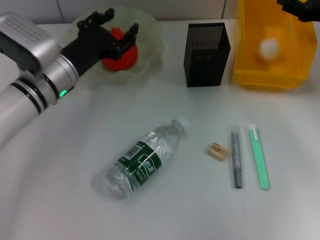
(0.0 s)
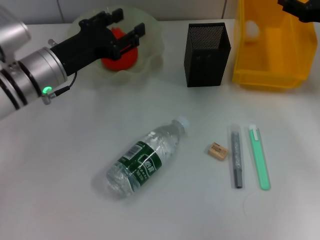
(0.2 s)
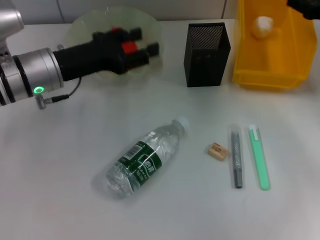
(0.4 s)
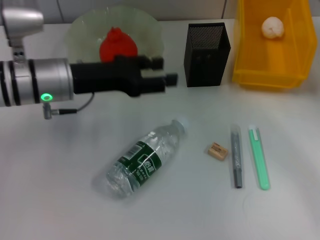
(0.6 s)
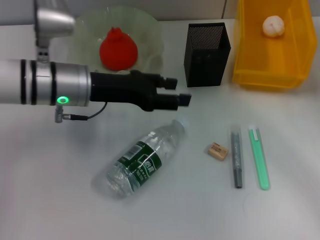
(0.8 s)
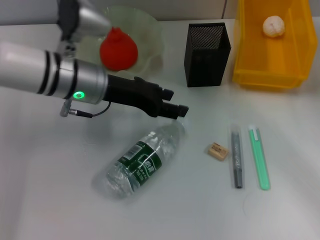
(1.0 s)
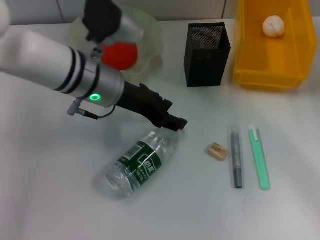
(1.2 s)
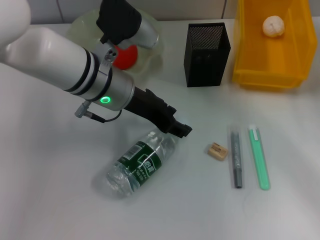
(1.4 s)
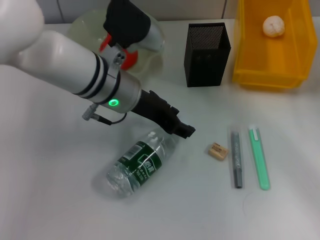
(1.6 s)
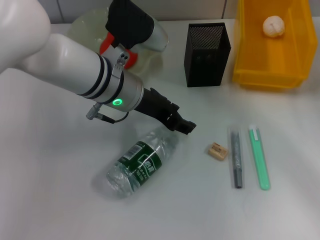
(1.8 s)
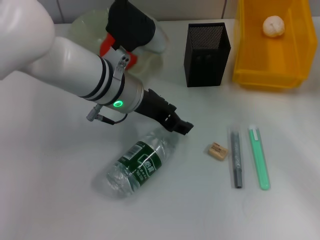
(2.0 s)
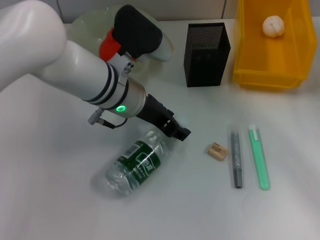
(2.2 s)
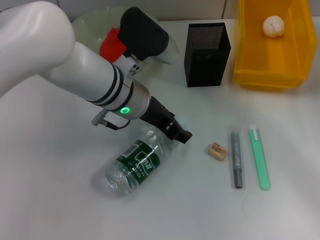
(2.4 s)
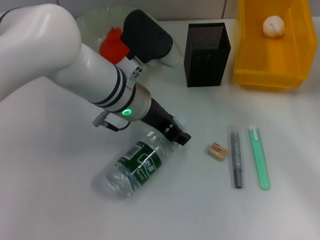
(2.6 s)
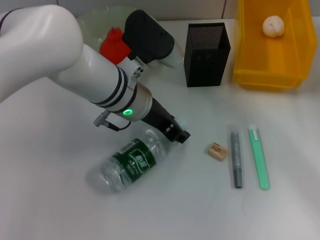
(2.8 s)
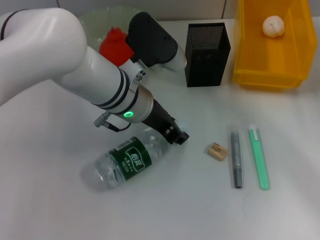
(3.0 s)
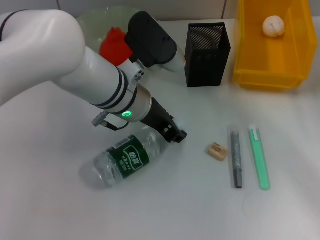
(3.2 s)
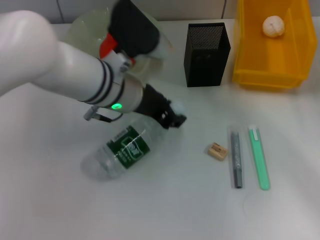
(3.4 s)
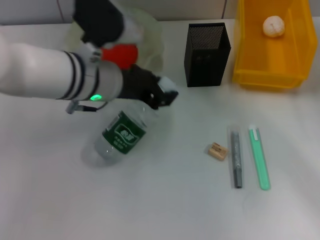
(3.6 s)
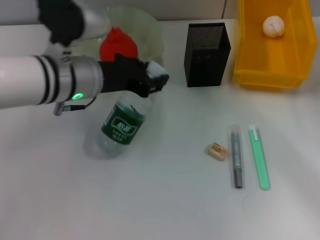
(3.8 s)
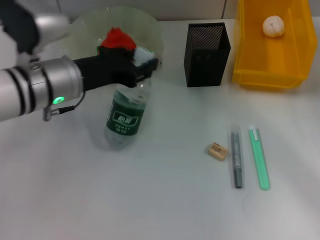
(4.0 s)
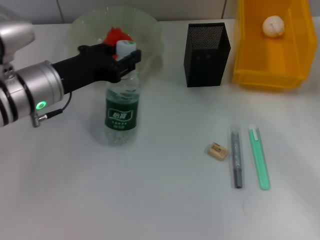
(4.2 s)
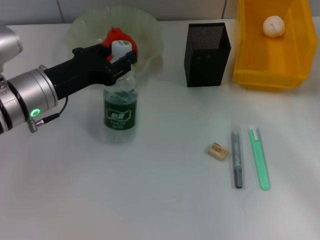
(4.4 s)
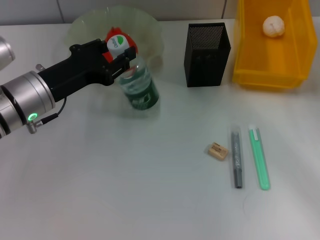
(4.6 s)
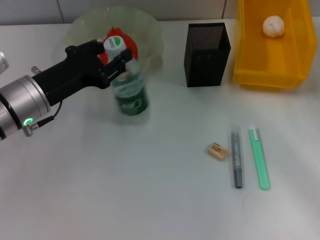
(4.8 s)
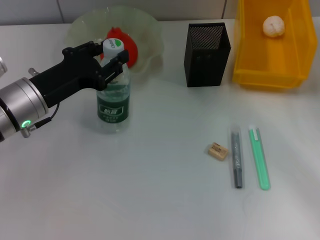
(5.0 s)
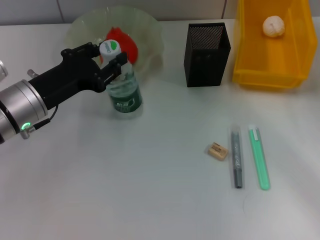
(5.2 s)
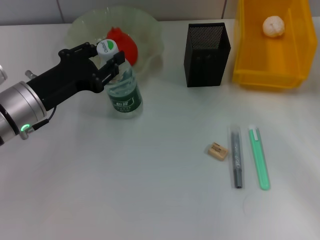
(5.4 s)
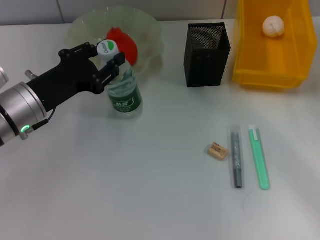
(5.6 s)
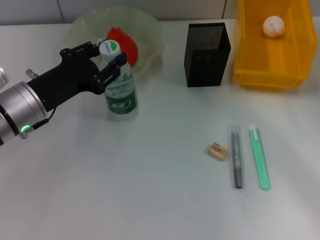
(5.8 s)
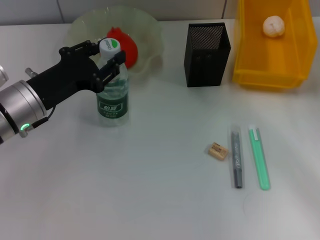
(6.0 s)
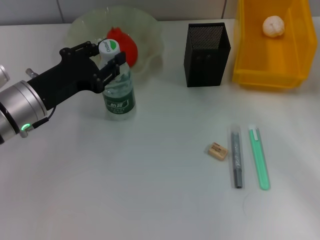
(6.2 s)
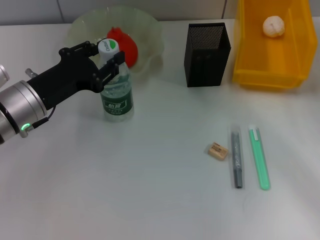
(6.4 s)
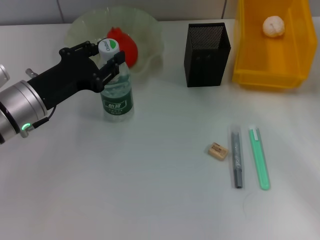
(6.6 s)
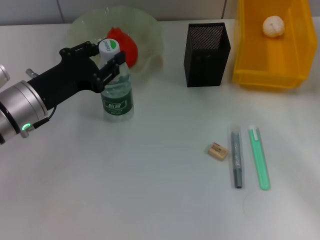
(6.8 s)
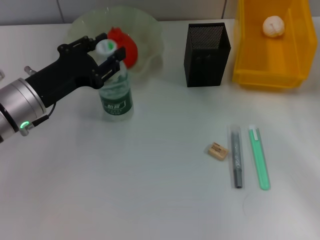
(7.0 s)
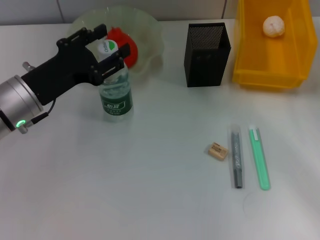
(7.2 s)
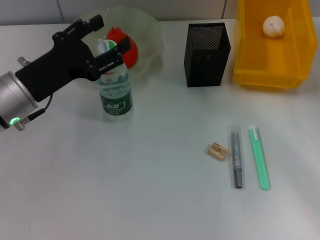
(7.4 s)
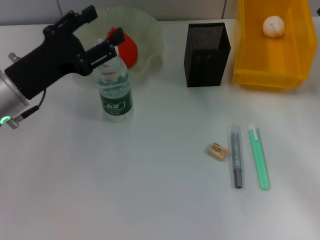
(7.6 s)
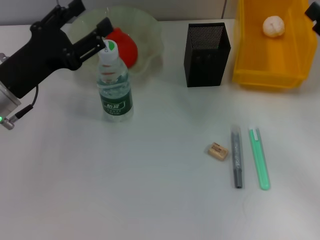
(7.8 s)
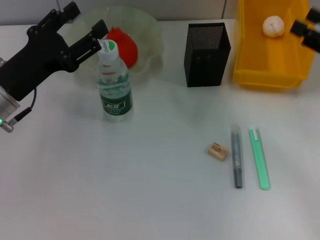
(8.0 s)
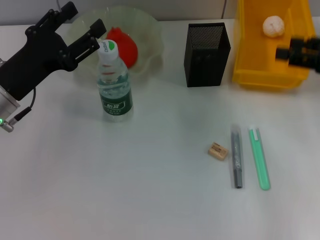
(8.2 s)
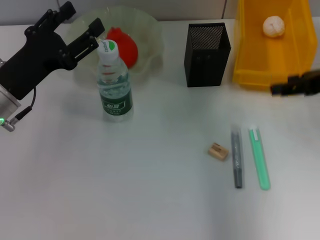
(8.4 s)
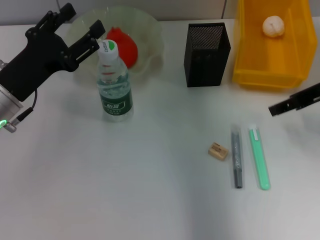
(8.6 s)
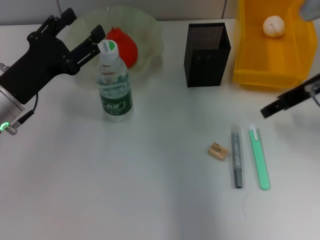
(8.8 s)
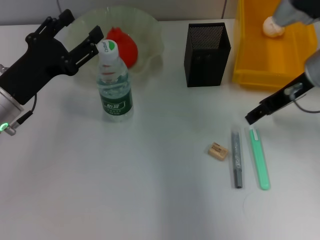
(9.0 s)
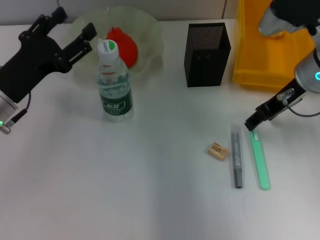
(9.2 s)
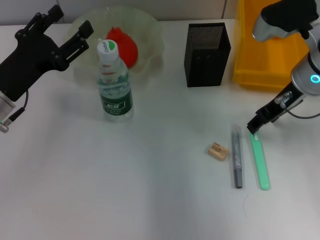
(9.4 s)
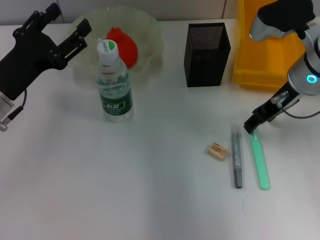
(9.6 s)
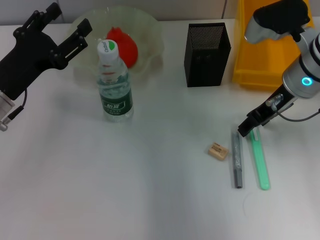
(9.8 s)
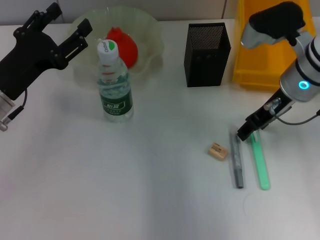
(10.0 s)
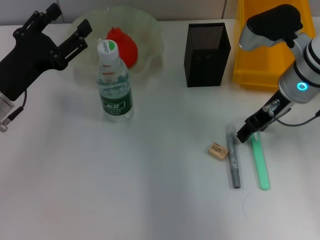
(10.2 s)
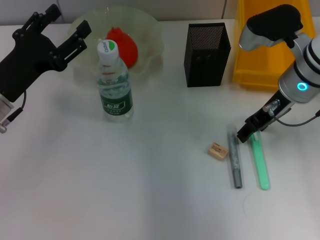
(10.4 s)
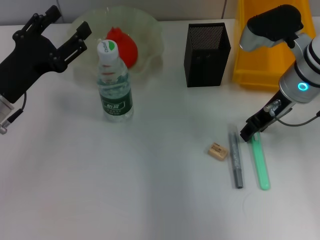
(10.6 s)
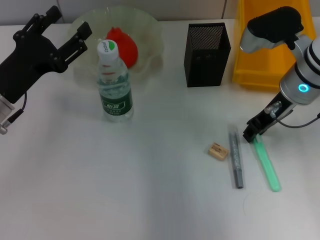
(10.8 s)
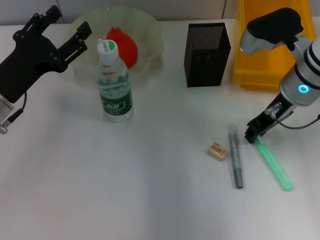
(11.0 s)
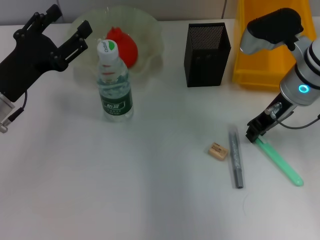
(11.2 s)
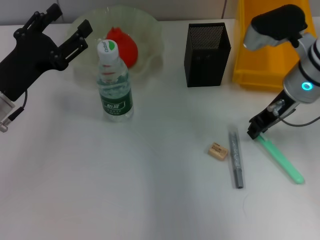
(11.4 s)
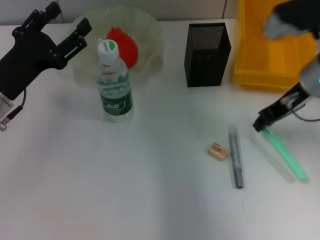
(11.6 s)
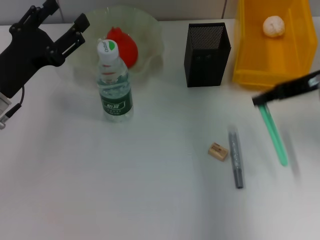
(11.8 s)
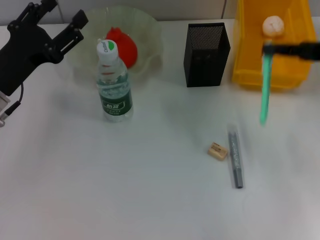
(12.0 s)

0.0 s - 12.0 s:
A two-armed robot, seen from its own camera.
Step, 0.2 s - 3.2 s: Grab the water bottle with the left hand.
Step, 3.4 s - 7.2 s: Place the water bottle on the table with the left hand.
Step, 7.4 s - 11.2 s: Grab the blue utility knife with the right hand.
0.0 s - 1.6 s: The left gripper heads to the right and upward, covering about 10 cm. The right gripper shifts about 10 cm backward.
1.6 s - 3.0 s: The grippers stay close to where they were, moving slightly.
3.0 s - 4.4 s: The left gripper shifts some 15 cm to the left.
4.4 s - 6.0 s: There are only small adjustments of the grippers.
6.0 s - 7.6 s: The left gripper opens.
7.6 s - 9.0 s: The right gripper shifts about 15 cm to the left, forward and upward.
9.0 s - 10.4 s: There are only small adjustments of the grippers.
10.4 s - 12.0 s: The right gripper heads to the right, covering approximately 15 cm, and closes up.

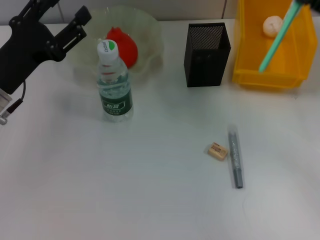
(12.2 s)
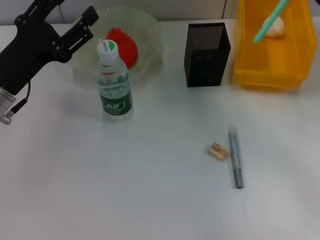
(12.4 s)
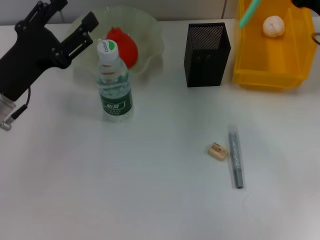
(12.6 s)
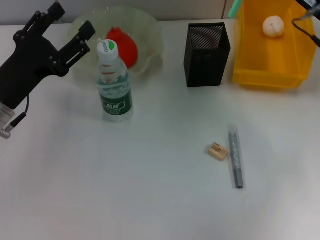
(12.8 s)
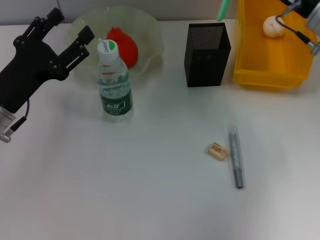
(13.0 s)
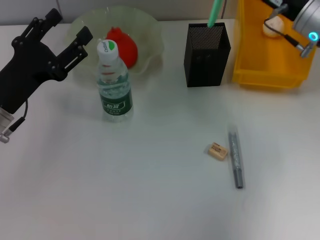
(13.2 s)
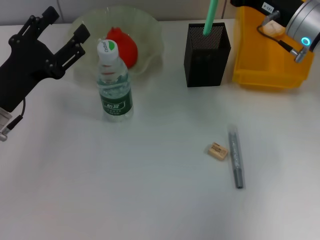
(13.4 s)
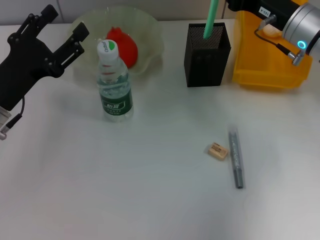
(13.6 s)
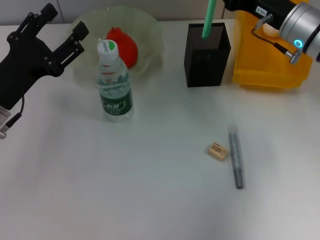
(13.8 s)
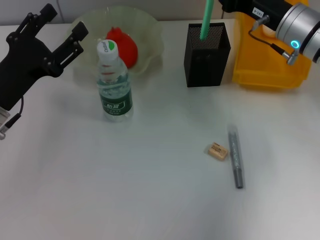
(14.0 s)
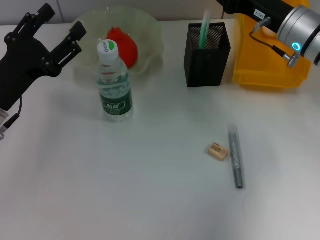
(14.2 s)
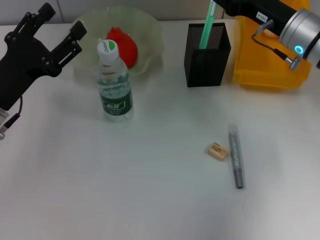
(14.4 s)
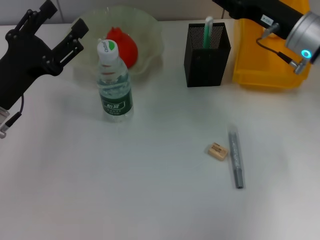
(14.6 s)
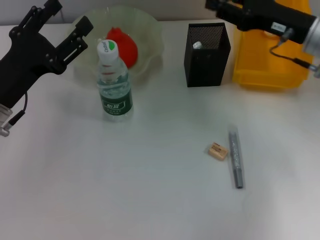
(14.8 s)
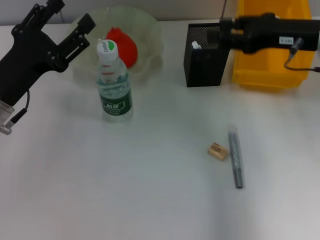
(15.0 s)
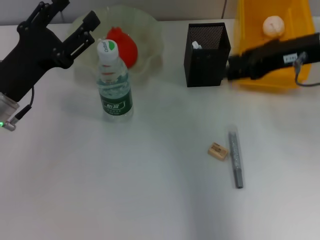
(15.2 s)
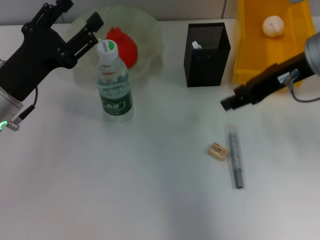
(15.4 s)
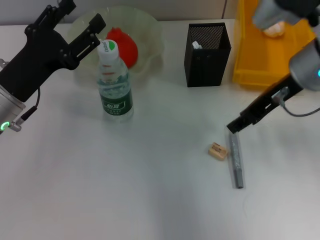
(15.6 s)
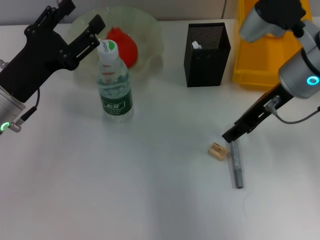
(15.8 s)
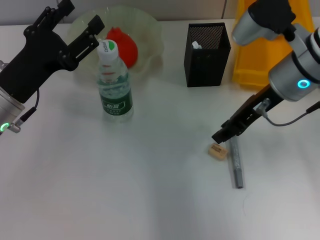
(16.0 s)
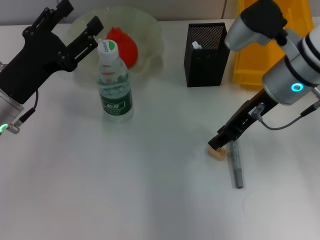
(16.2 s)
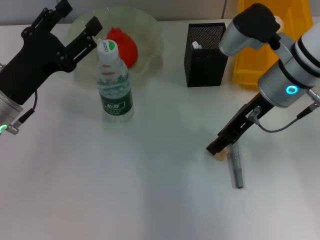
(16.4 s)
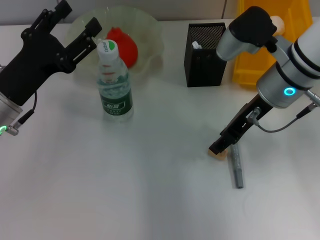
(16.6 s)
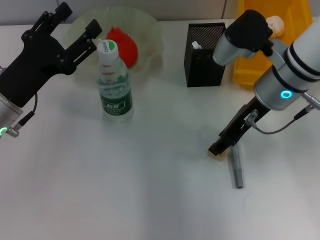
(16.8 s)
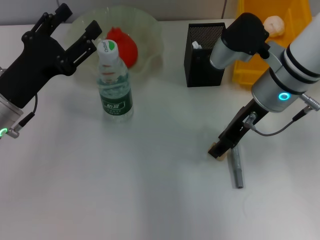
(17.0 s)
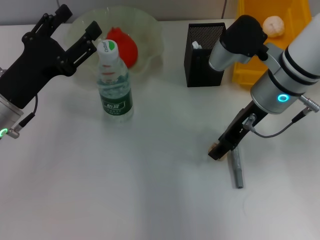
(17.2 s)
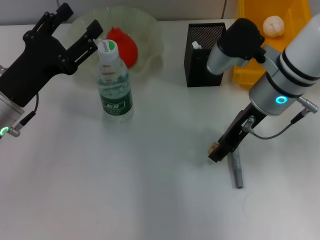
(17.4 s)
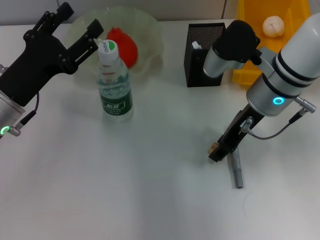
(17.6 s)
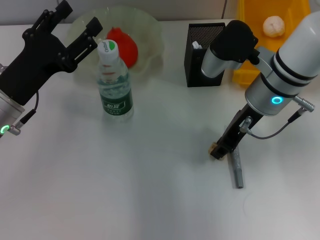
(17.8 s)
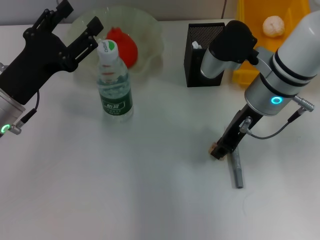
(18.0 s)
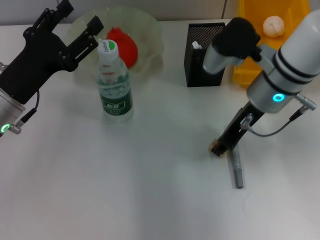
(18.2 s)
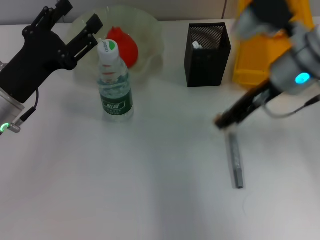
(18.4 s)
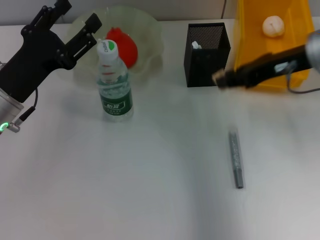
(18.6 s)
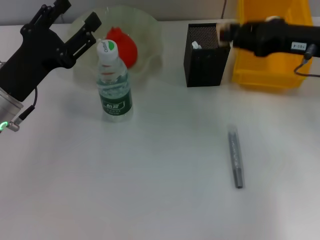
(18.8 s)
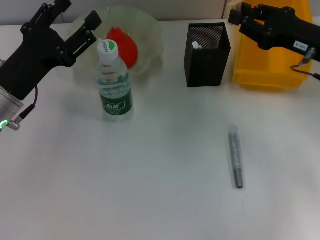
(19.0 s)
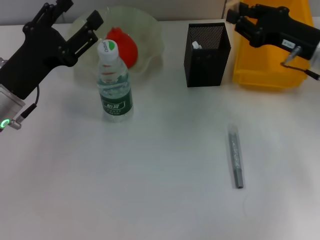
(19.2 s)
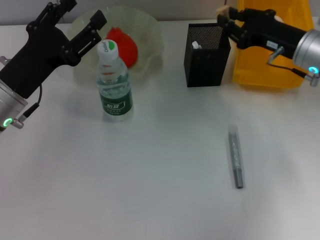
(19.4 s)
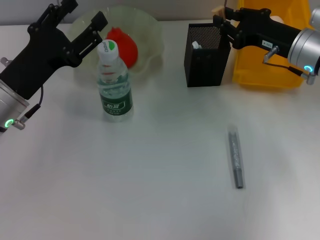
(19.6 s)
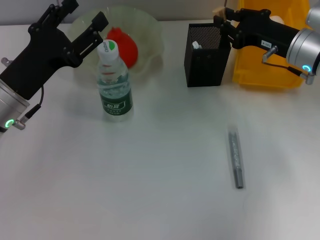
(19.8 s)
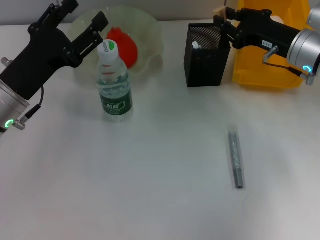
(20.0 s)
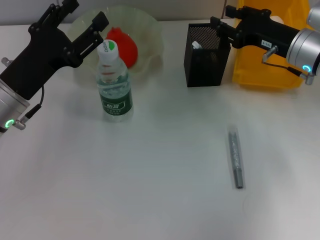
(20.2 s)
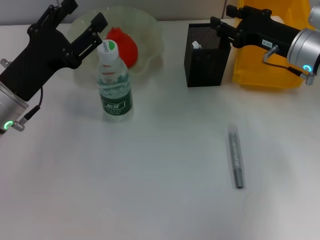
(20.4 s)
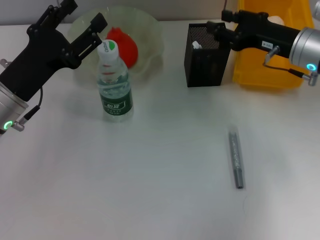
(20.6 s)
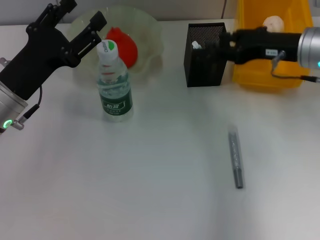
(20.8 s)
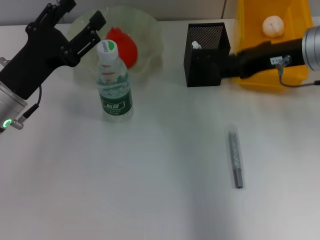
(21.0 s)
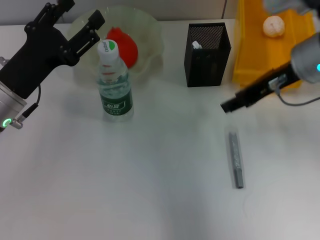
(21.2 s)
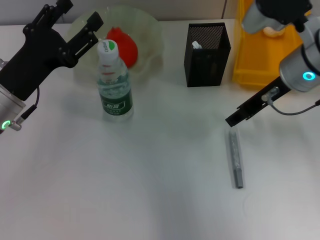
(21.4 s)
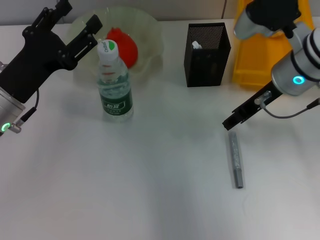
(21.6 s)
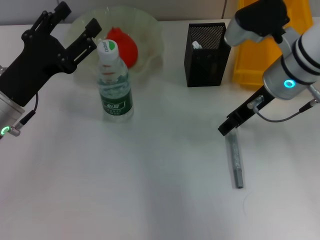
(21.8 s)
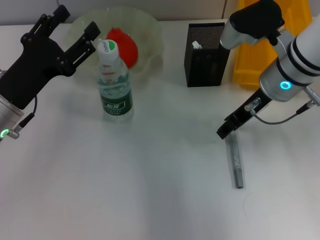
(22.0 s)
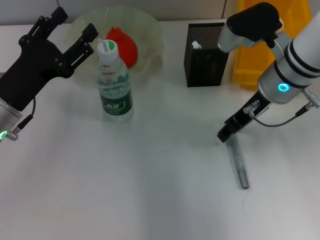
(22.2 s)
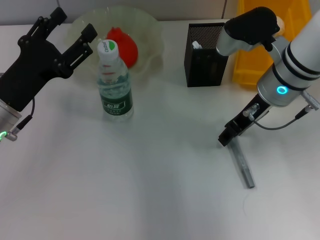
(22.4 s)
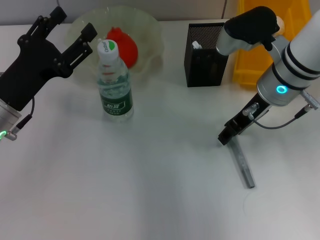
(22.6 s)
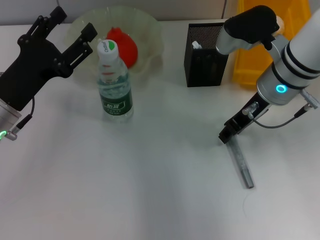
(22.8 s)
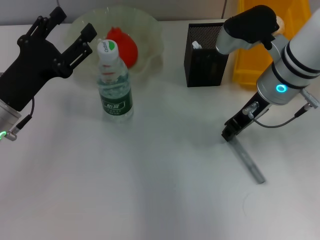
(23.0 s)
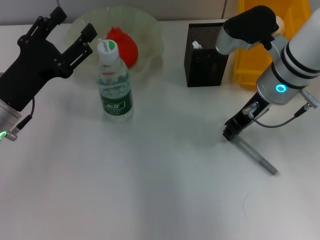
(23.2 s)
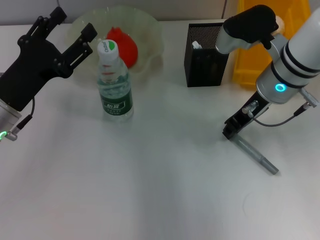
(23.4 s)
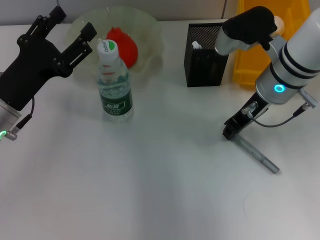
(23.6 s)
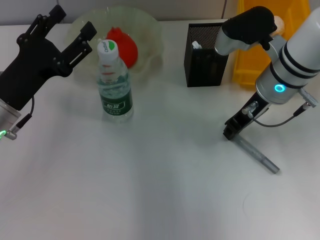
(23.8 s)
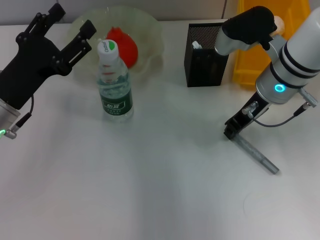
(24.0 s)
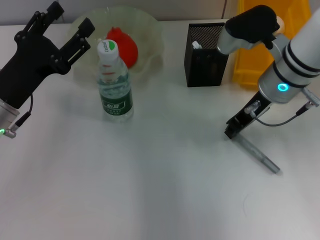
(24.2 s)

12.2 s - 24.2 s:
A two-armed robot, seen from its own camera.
Step, 12.2 s - 15.0 s: Place the blue utility knife into the pen holder with the right hand.
Step, 15.2 s - 18.0 s: Grab the eraser with the right hand.
Step, 18.2 s - 20.2 s: Put the eraser into the pen holder with the right hand.
Step, 20.4 s - 24.0 s: Grab the gray glue with the right hand.
12.2 s - 13.8 s: The right gripper heads to the left and forward, covering about 15 cm.
13.8 s - 15.2 s: The right gripper travels upward and backward by approximately 10 cm, and opens.
15.2 s - 16.6 s: The right gripper moves to the left and downward, roughly 10 cm.
16.6 s - 18.2 s: The right gripper closes up.
18.2 s - 19.8 s: The right gripper is displaced to the right by about 10 cm.
19.8 s - 21.2 s: The right gripper moves upward, roughly 10 cm.
21.2 s - 22.6 s: The right gripper moves roughly 5 cm.
22.6 s - 24.2 s: The right gripper closes.
